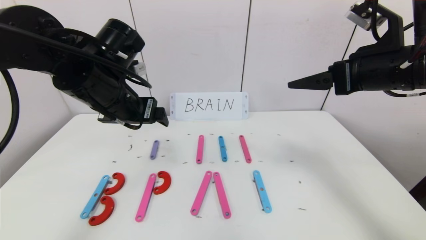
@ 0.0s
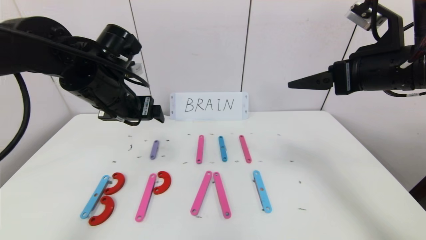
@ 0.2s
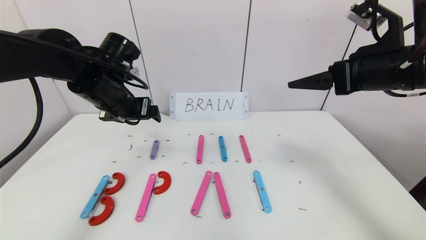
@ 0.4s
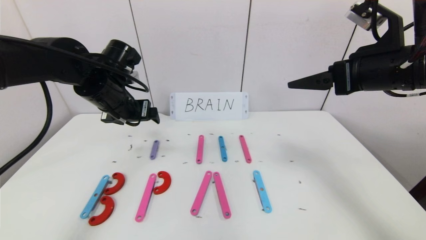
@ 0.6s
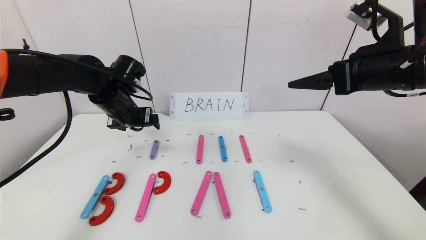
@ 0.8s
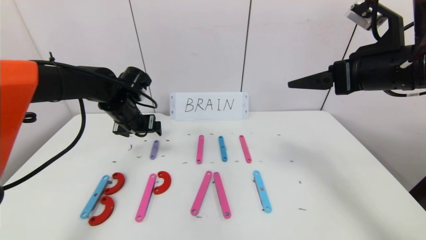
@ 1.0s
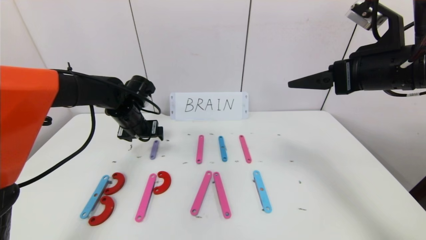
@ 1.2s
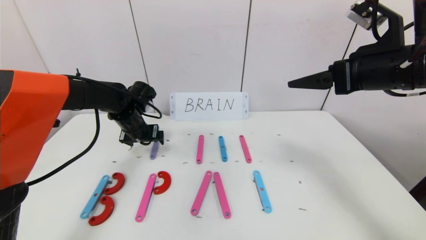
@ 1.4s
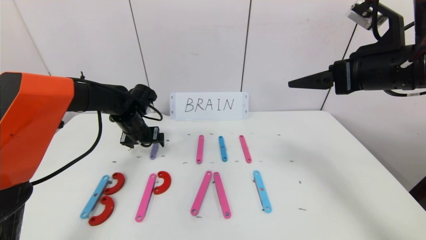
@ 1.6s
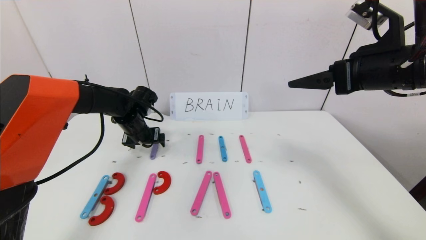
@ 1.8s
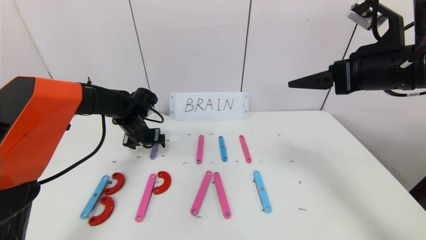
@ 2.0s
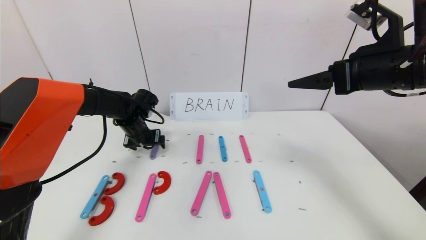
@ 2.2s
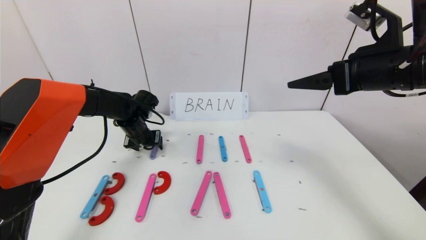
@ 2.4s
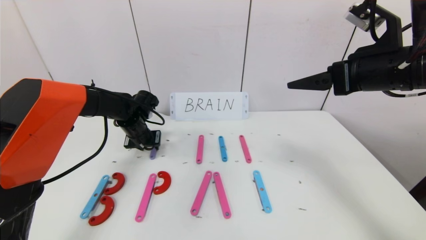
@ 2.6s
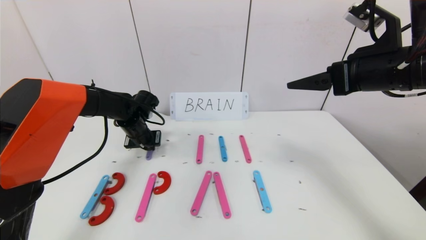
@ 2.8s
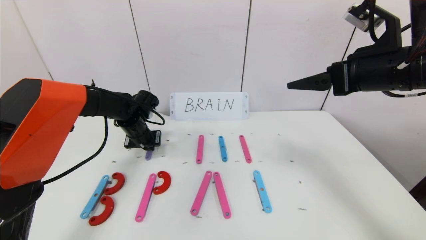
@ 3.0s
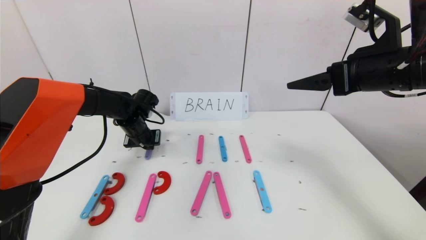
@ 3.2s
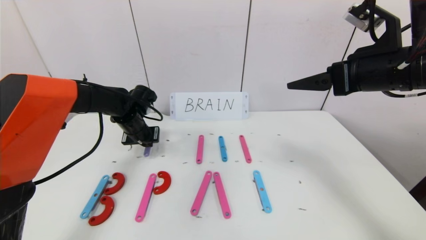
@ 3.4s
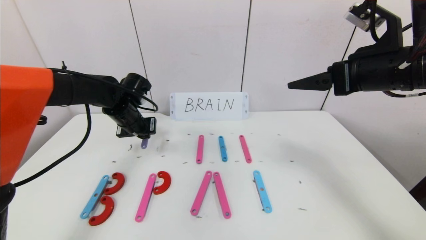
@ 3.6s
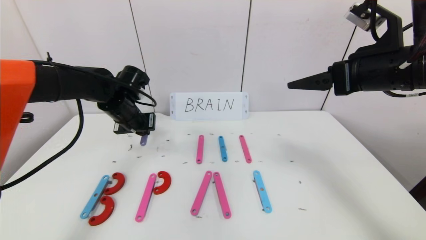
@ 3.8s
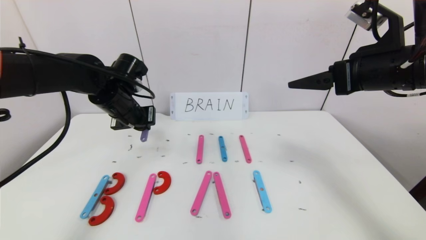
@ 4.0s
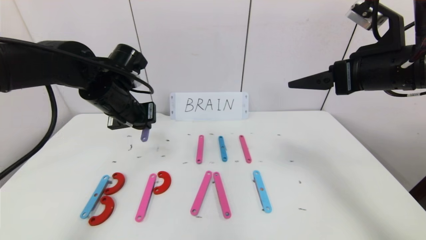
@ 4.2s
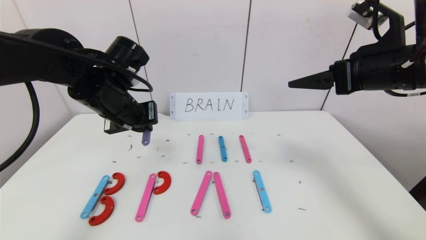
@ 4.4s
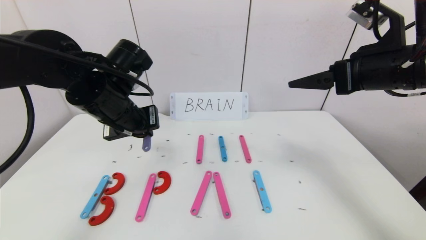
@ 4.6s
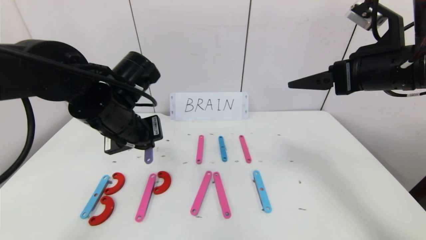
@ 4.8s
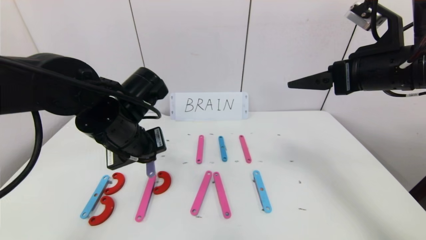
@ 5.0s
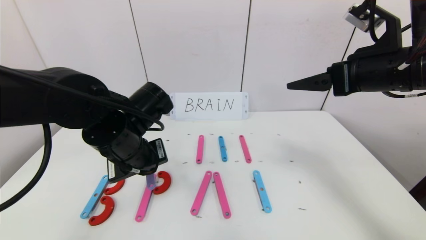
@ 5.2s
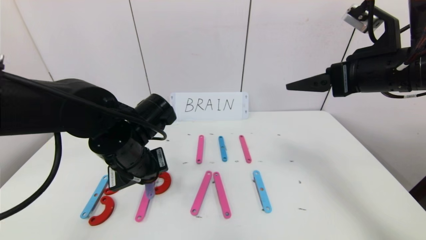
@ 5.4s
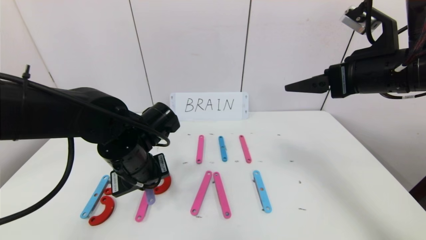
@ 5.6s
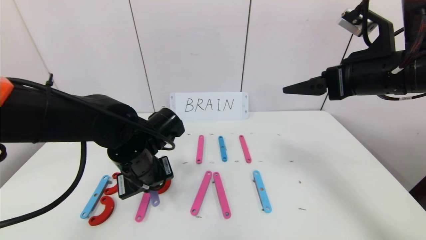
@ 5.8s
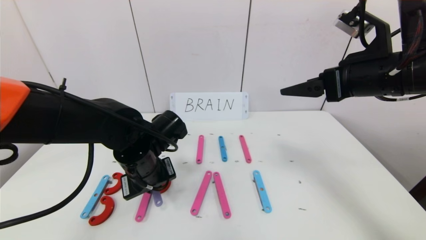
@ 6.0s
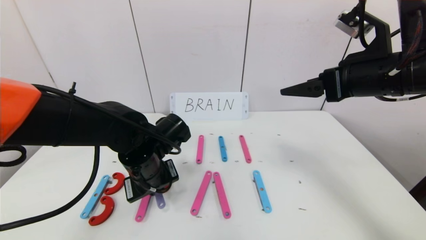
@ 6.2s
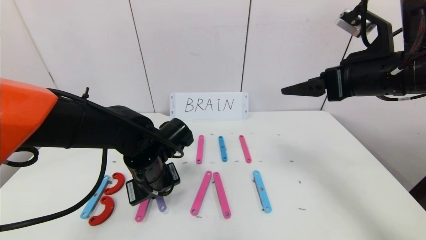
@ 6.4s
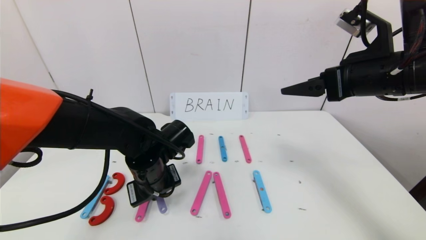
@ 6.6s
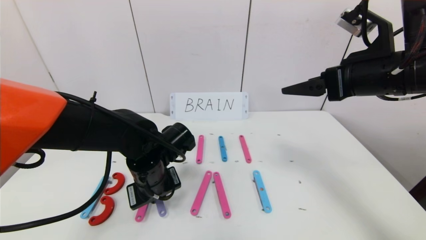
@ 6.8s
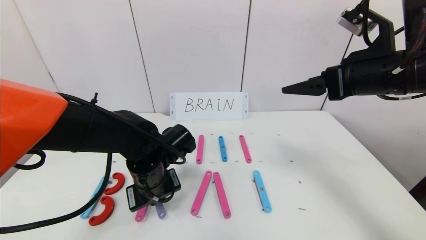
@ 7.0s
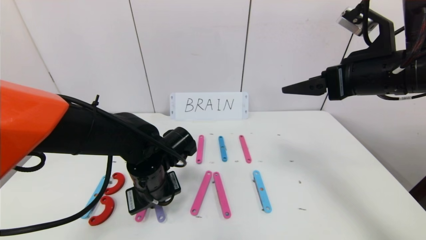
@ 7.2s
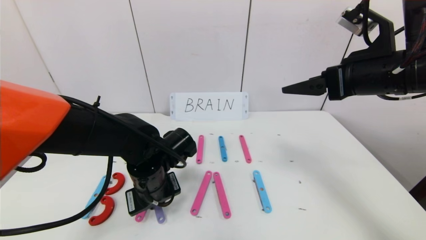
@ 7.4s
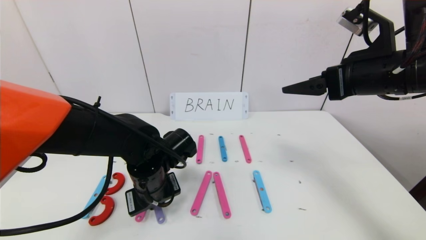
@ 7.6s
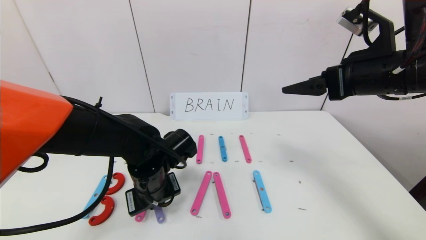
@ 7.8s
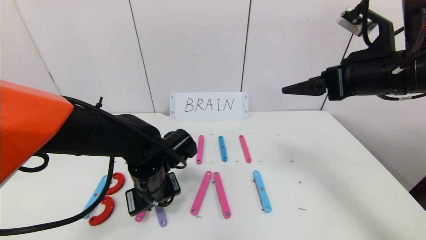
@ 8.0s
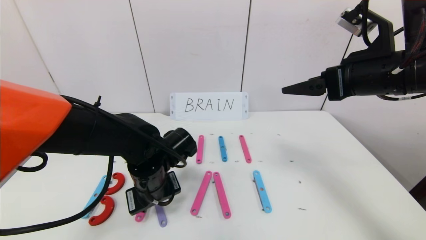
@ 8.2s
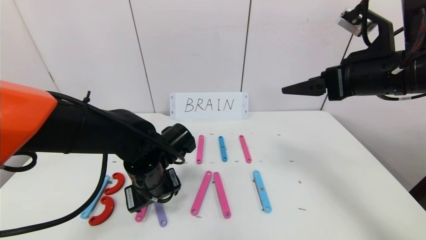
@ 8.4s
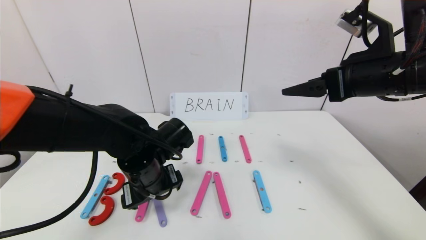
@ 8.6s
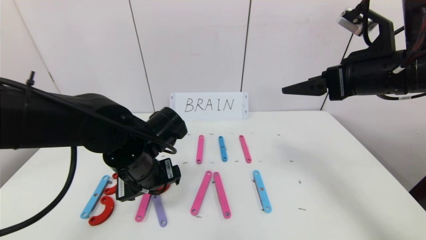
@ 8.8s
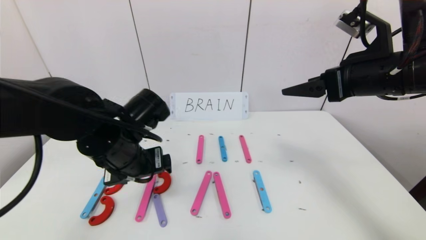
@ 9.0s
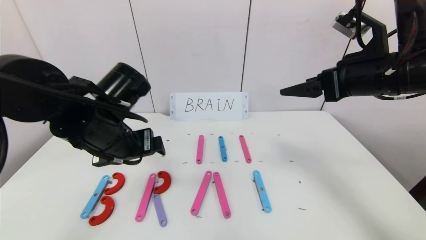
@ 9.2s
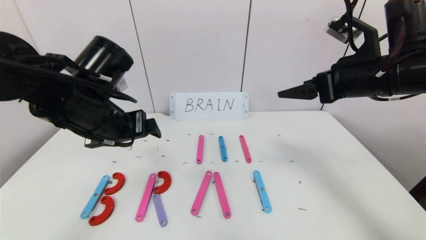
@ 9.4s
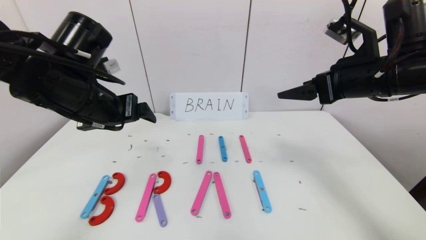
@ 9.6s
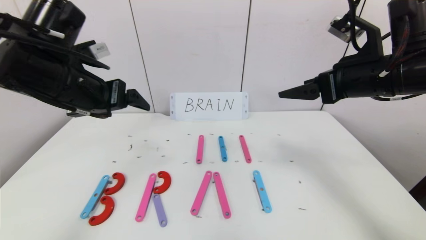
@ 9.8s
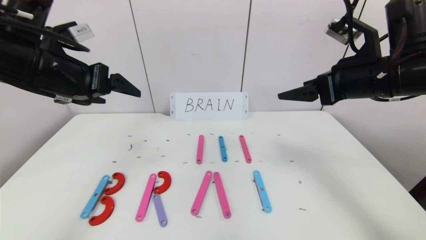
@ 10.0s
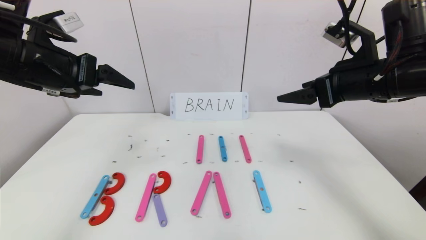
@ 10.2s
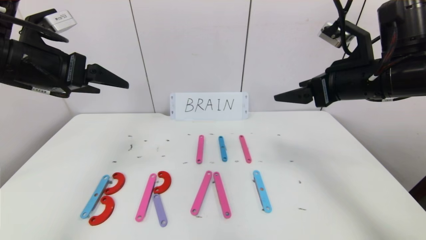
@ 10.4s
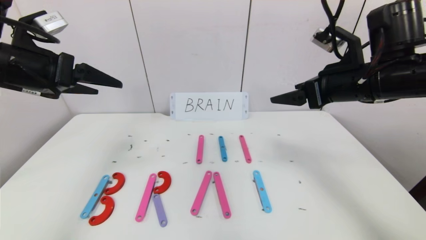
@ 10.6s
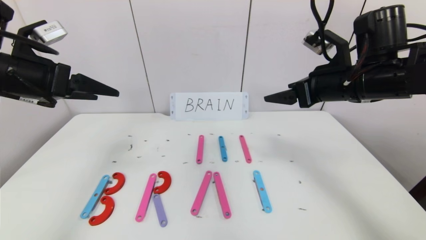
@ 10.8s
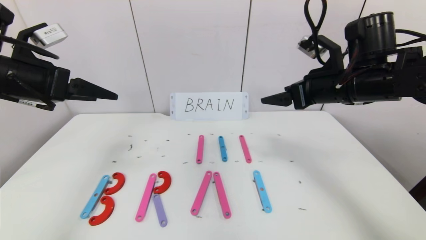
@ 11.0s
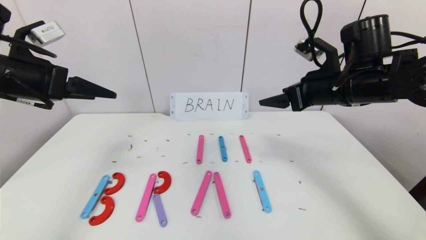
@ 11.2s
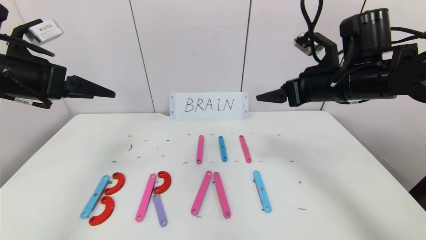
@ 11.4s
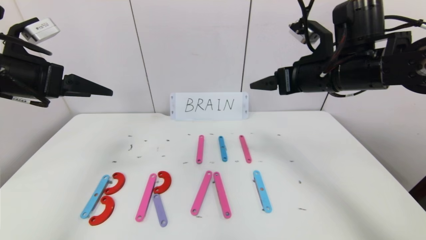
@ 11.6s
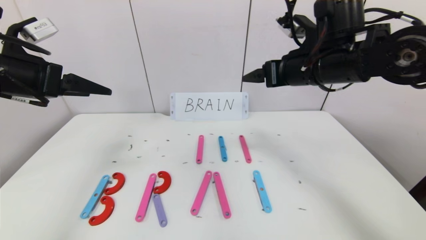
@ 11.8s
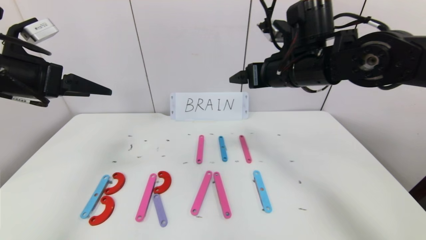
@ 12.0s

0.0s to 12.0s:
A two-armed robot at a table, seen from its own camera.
Task of the whole recording: rearrange the word baai as brain.
Step, 0.0s to 7.8s: Place the character R between first character B and third character A.
0.0s to 1.6s: The left gripper shifts some 20 cm downward and forward.
1.6s to 3.0s: The left gripper closes.
3.0s to 4.4s: The left gripper heads upward and backward, covering roughly 20 cm.
4.4s to 6.0s: The left gripper heads downward, covering roughly 10 cm.
6.0s to 7.6s: The grippers stay close to where they were, moving slightly.
7.6s to 9.0s: The left gripper moves upward, some 10 cm, and opens its fingers.
9.0s to 10.4s: The left gripper heads upward and to the left, covering approximately 20 cm.
10.4s to 12.0s: The right gripper travels to the left and forward by some 10 cm.

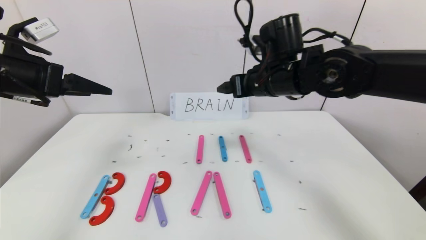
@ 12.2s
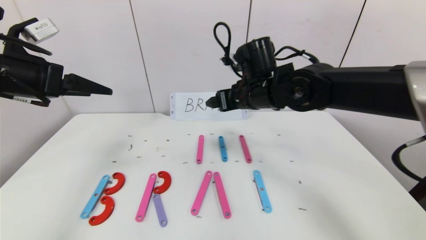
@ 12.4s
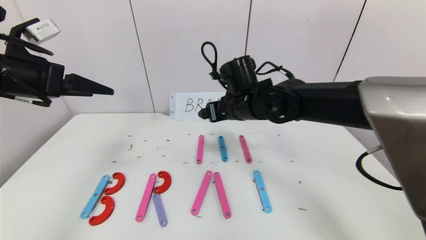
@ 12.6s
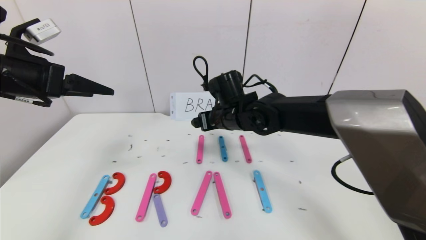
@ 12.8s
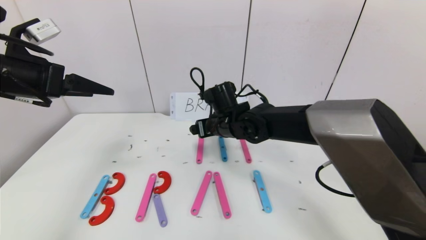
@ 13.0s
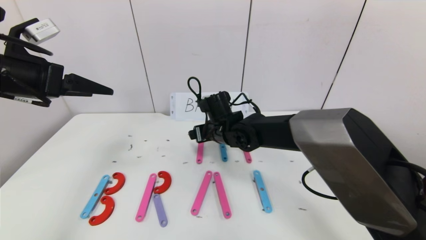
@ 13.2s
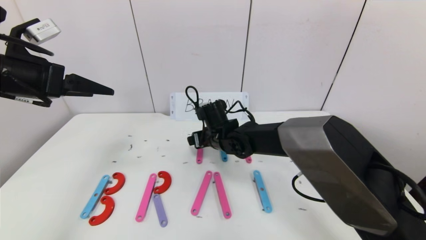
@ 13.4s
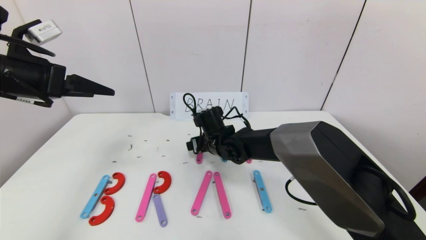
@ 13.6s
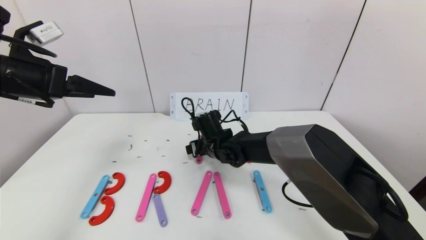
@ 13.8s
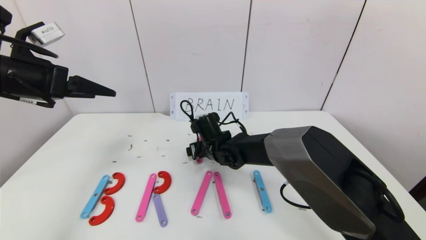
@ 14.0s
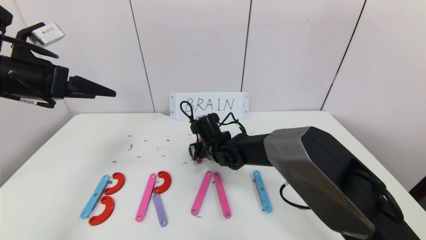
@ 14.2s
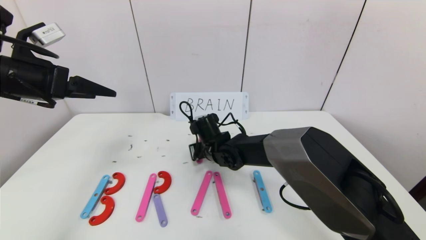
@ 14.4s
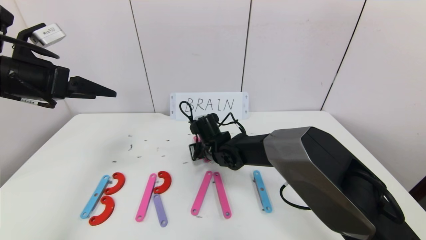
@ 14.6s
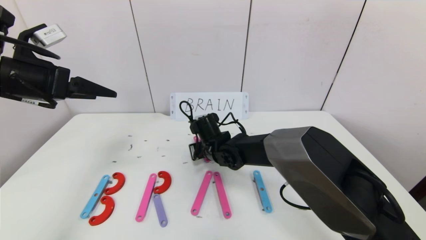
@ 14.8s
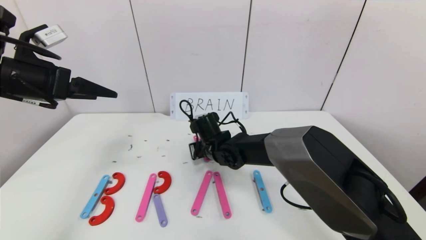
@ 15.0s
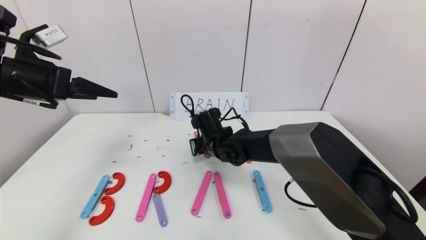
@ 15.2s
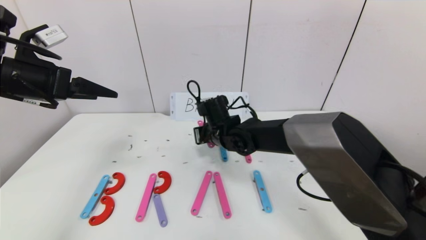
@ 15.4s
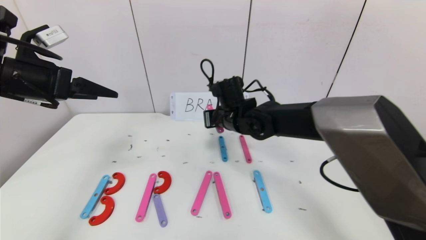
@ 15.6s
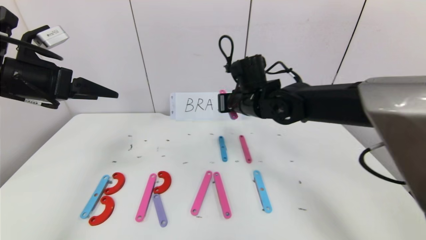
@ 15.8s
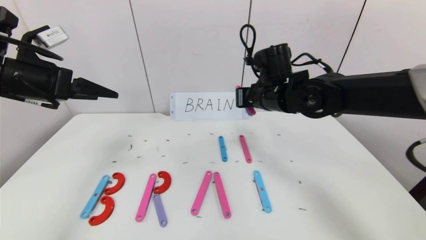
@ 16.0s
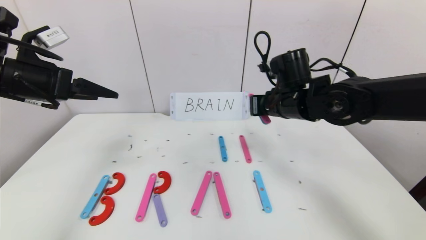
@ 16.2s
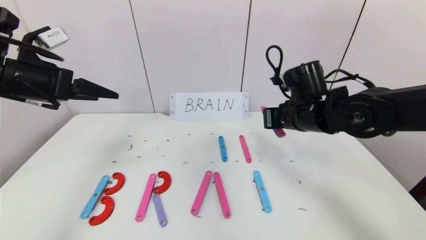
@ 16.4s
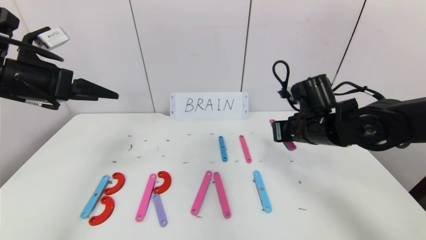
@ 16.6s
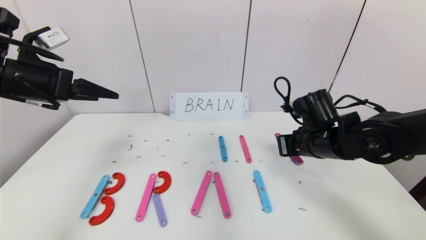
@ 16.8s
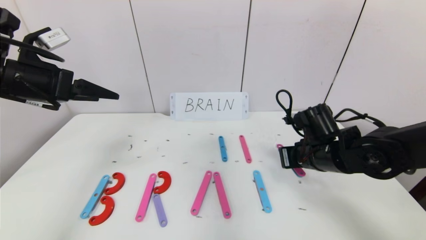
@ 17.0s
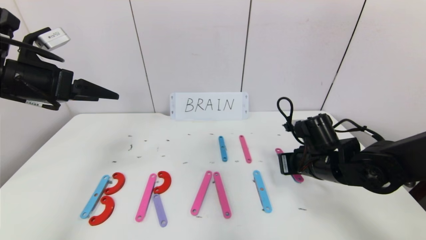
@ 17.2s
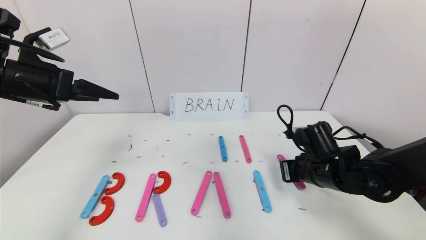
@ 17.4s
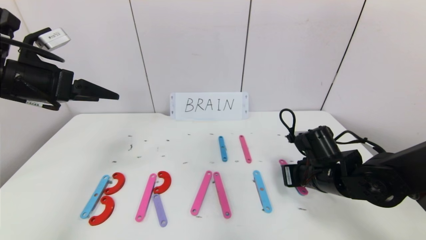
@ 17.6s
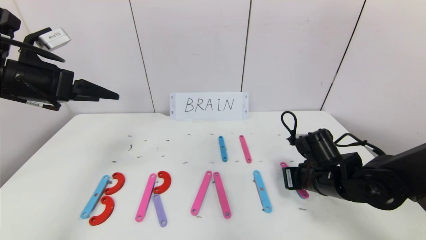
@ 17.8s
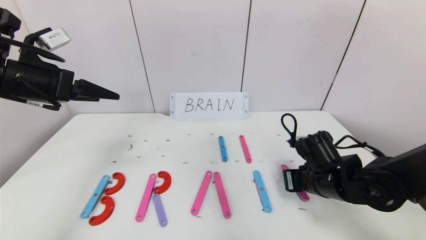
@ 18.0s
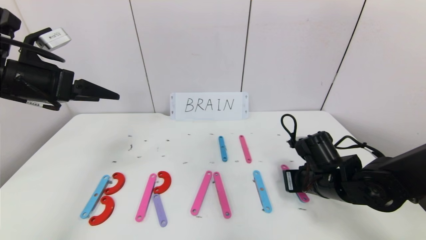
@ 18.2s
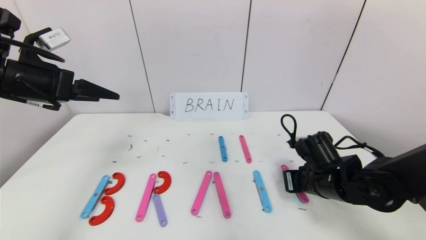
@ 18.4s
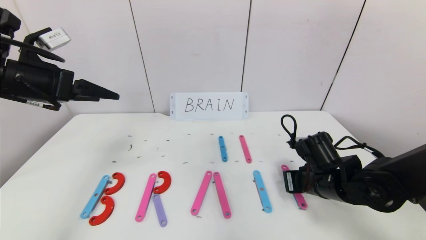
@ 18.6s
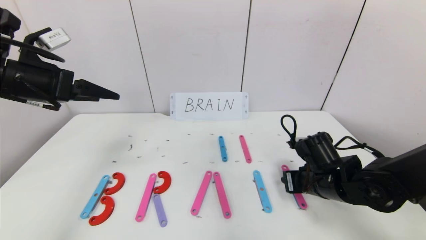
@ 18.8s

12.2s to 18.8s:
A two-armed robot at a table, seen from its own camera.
Task of the whole recording: rearrange the word baai as brain.
12.2s to 13.8s: The right gripper shifts approximately 20 cm downward and to the left.
13.8s to 15.4s: The right gripper heads upward, covering approximately 5 cm, and closes its fingers.
15.4s to 17.2s: The right gripper shifts some 20 cm to the right and backward.
17.2s to 18.8s: The right gripper opens up.
